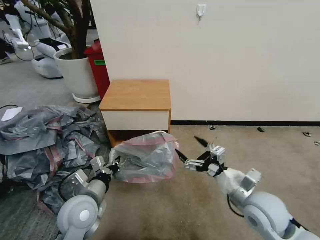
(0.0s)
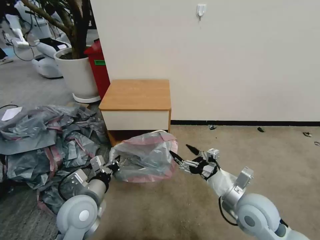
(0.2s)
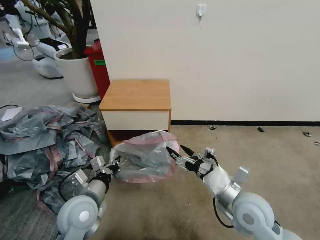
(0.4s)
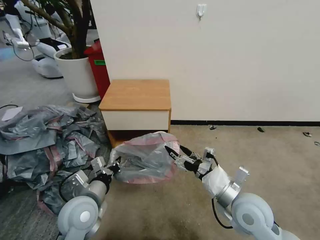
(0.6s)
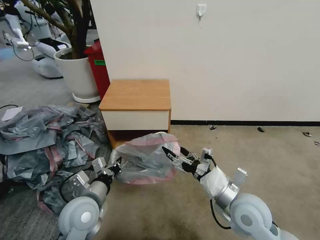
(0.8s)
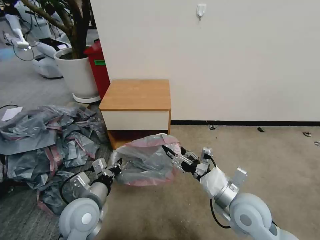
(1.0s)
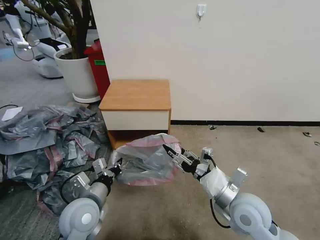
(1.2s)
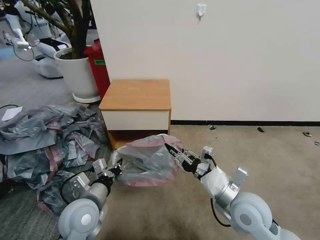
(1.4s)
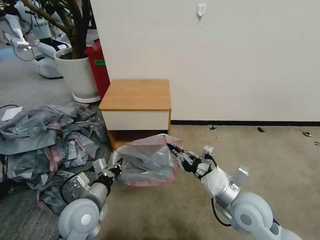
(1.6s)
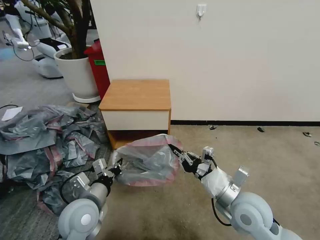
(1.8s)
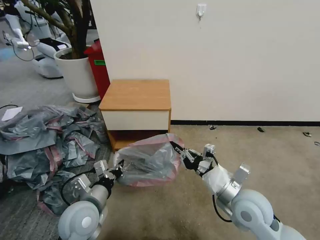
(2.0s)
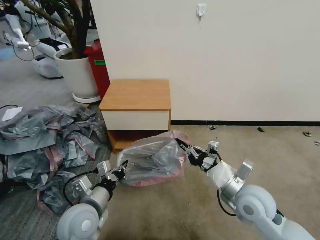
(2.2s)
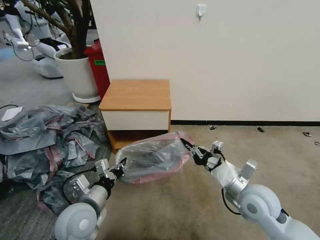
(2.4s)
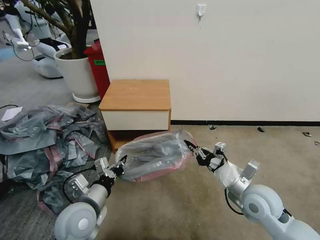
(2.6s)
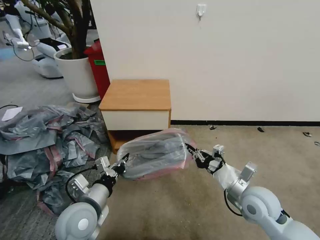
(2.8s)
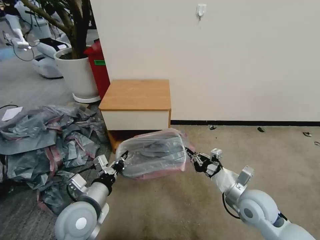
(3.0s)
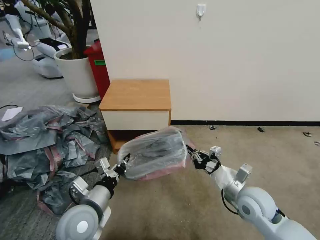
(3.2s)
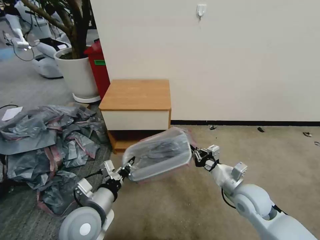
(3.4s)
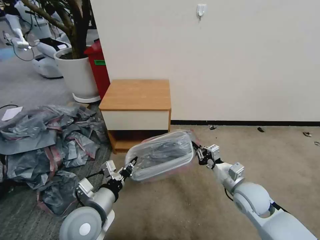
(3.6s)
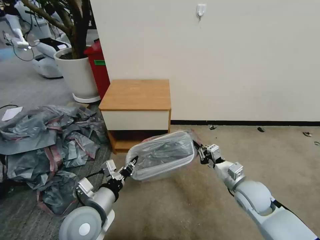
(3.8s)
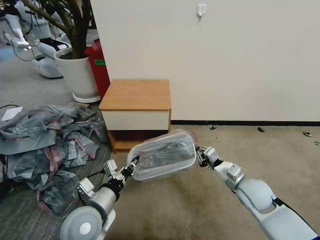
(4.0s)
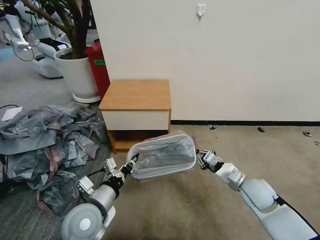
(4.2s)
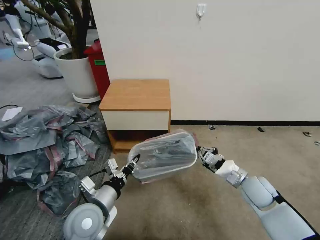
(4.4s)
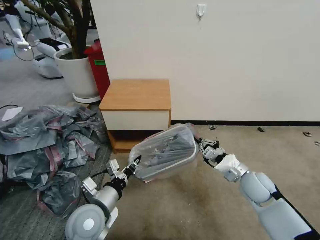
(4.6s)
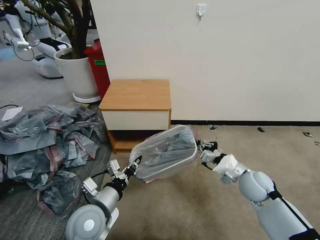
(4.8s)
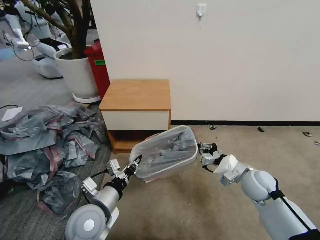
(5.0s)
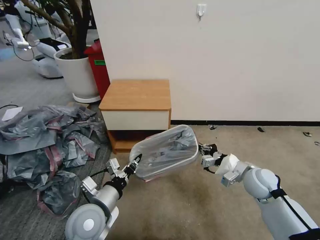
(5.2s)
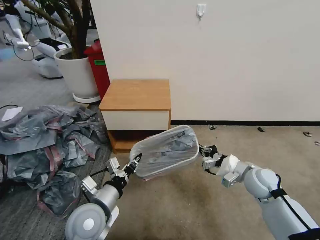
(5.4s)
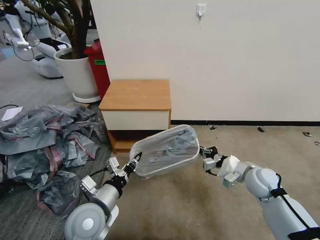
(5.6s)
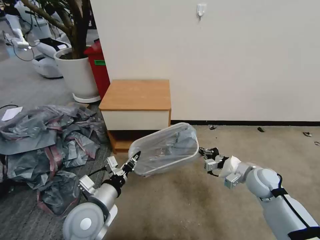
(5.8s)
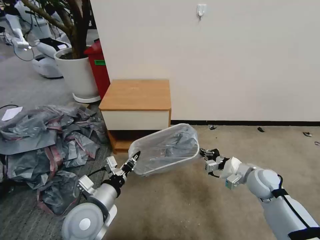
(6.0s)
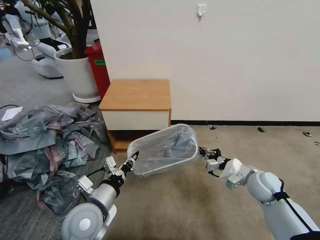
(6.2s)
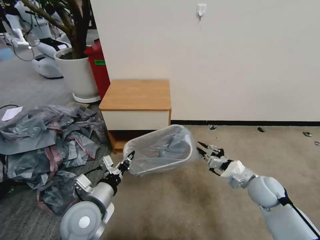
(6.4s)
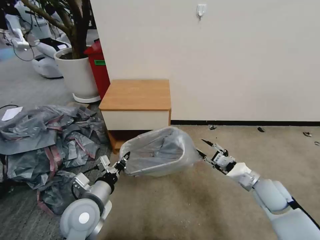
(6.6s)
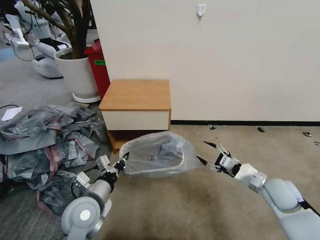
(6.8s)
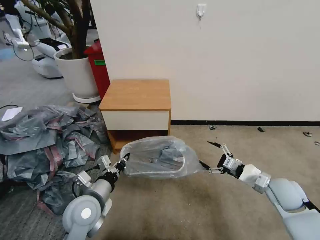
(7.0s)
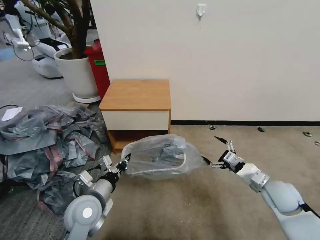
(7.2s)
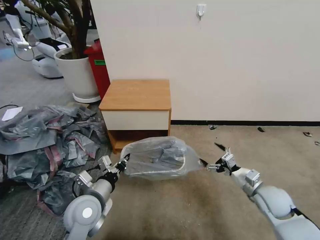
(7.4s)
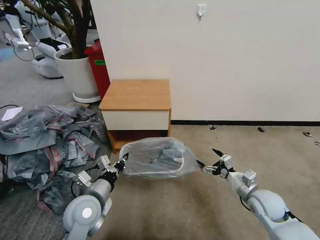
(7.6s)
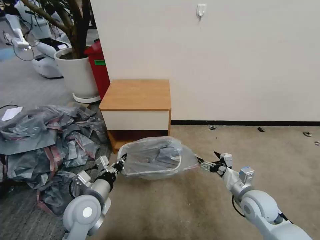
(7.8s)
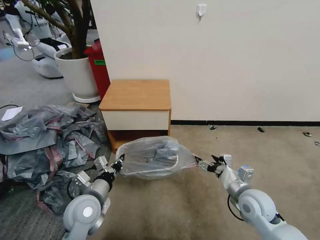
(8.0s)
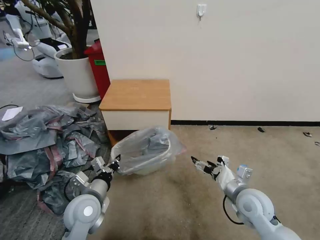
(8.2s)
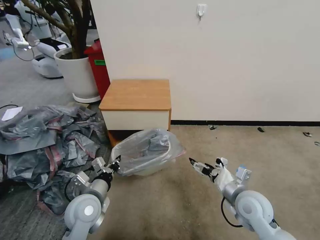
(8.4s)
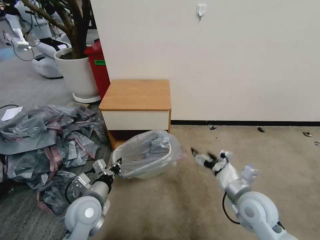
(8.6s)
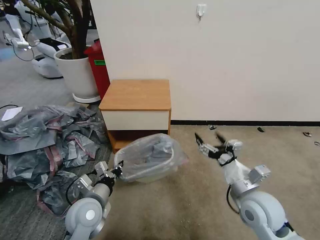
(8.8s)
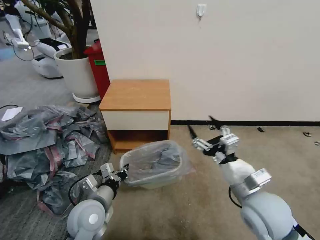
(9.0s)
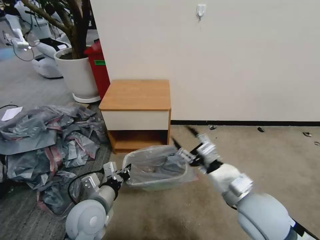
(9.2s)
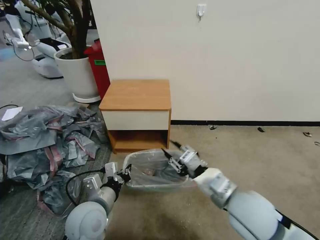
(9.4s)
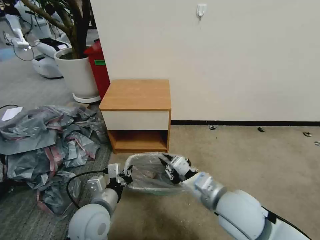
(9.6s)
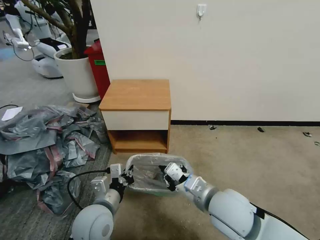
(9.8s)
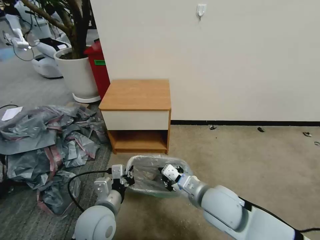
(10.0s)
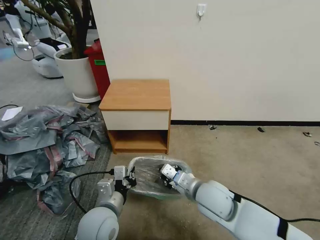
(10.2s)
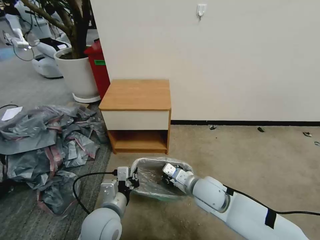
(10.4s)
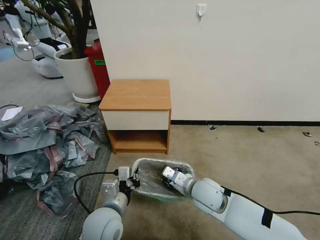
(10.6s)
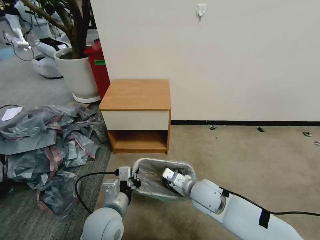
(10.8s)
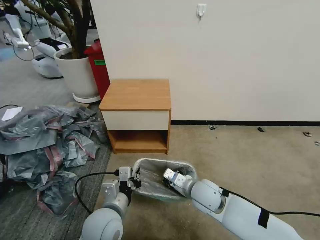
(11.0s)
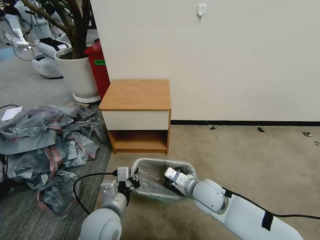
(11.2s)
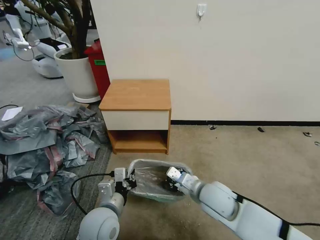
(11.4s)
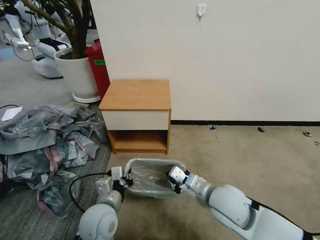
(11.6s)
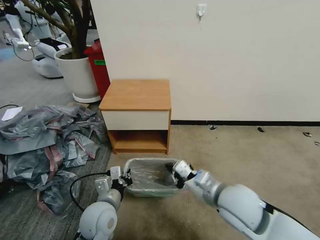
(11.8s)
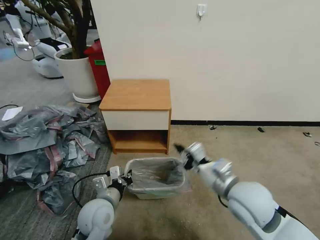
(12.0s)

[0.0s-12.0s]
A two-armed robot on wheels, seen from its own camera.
Task of the whole recording: Pick up the garbage bag from the table and place it over the trash can.
0.0s to 1.6s: The right gripper closes.
1.6s to 3.0s: The right gripper changes place by some 5 cm.
3.0s to 4.4s: The right gripper is displaced forward by roughly 5 cm.
6.0s to 7.6s: The right gripper is displaced backward by roughly 5 cm, and opens up.
7.6s to 9.0s: The right gripper goes about 20 cm upward and to the left.
9.0s to 10.4s: The right gripper heads to the left, downward and forward, covering about 15 cm, and closes up. Meanwhile the left gripper changes place by some 5 cm.
10.4s to 12.0s: The left gripper changes place by about 5 cm, while the right gripper heads upward and to the right, covering about 10 cm.

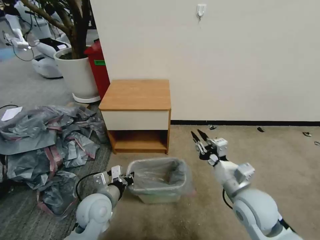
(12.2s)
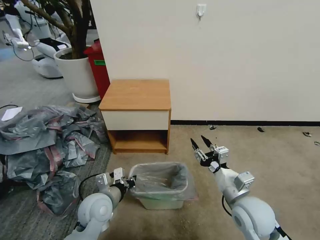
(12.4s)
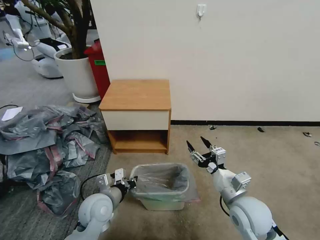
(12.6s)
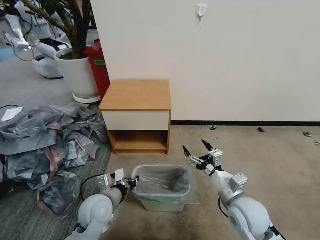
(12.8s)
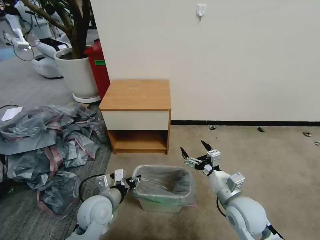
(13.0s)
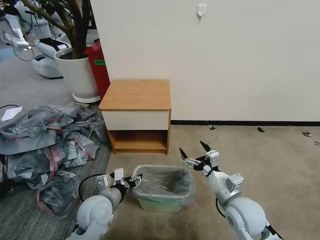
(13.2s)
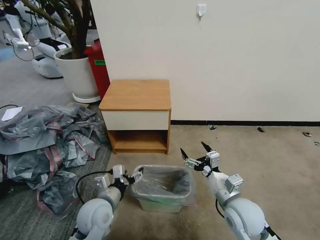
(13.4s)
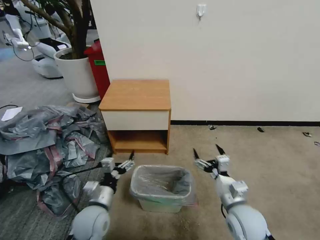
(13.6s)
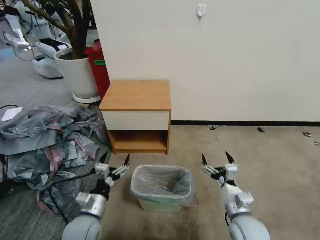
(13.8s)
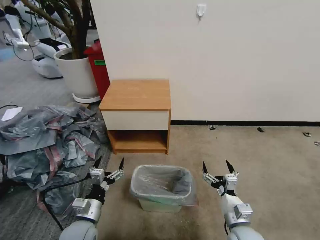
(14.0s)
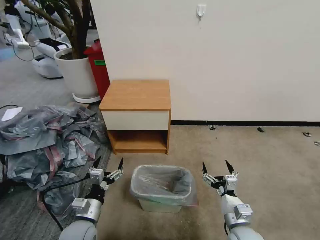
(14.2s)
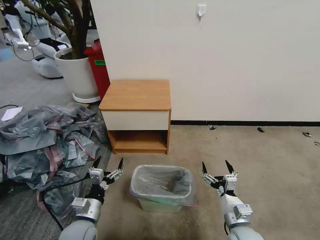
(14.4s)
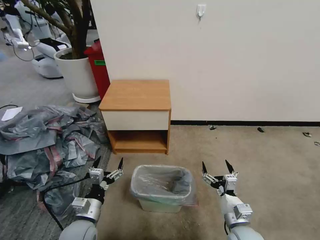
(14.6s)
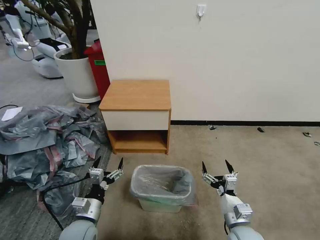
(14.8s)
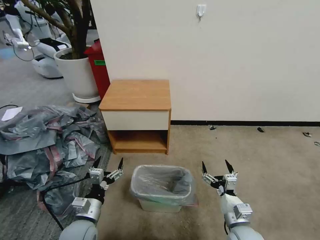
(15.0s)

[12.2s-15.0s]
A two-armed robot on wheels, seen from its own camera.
Task of the whole recording: Pick up the garbage bag from the table and place it over the trash can.
12.2s to 13.6s: The left gripper opens its fingers. Meanwhile the right gripper goes about 10 cm downward, and opens up.
13.6s to 15.0s: The right gripper goes approximately 5 cm downward; the left gripper changes place by some 5 cm.

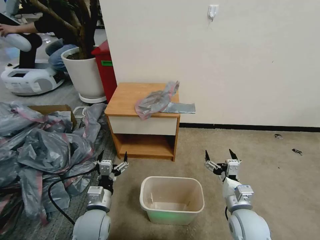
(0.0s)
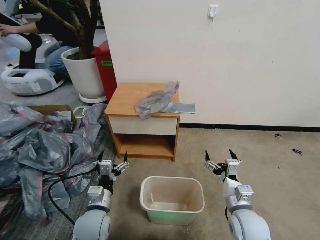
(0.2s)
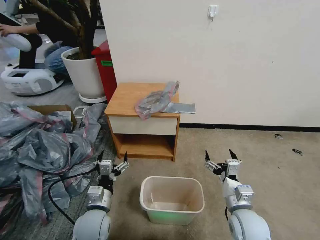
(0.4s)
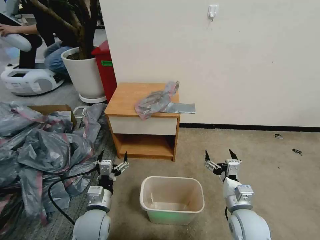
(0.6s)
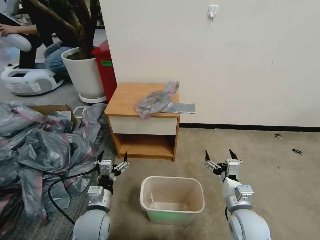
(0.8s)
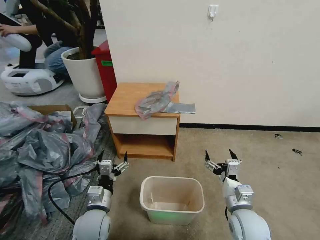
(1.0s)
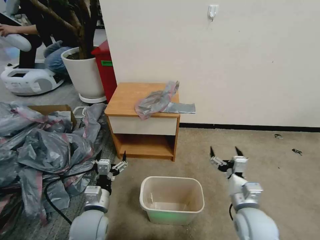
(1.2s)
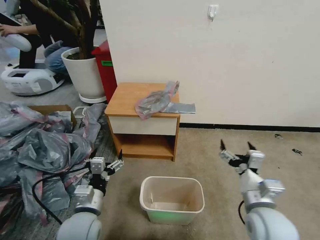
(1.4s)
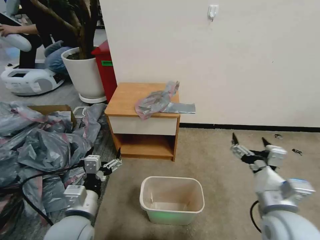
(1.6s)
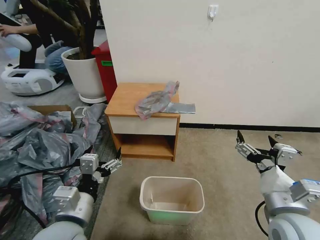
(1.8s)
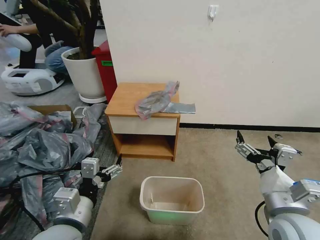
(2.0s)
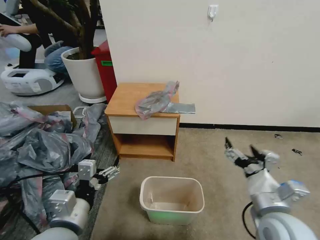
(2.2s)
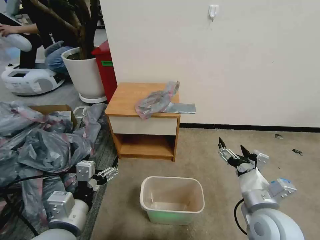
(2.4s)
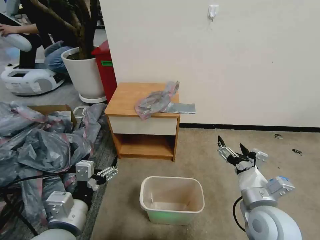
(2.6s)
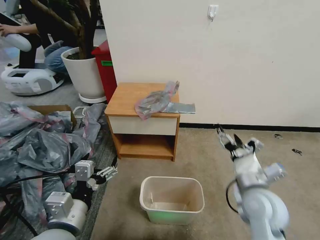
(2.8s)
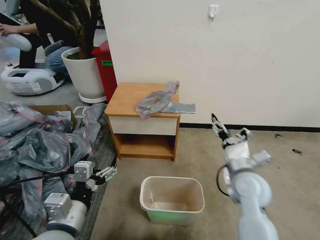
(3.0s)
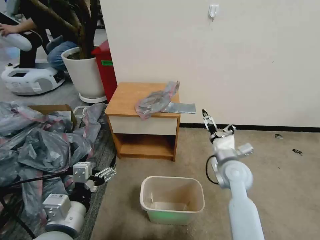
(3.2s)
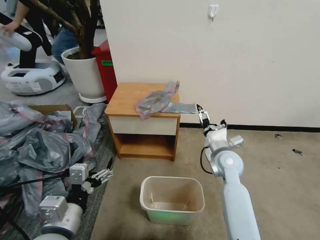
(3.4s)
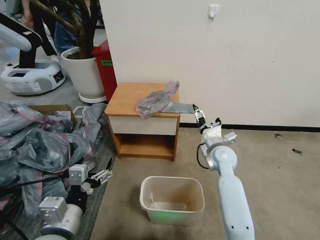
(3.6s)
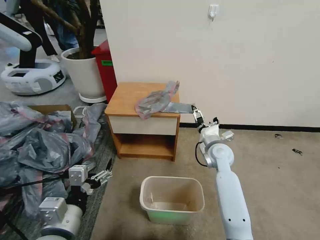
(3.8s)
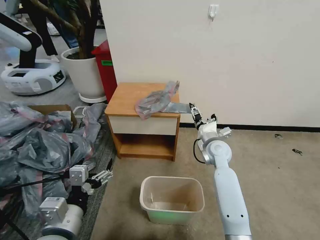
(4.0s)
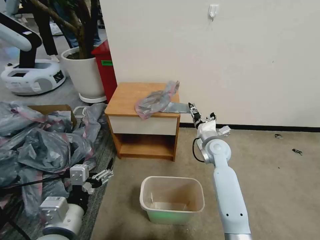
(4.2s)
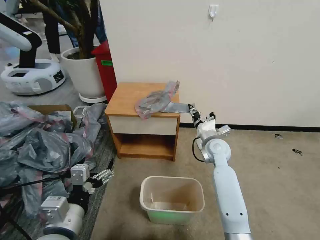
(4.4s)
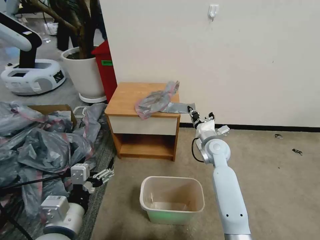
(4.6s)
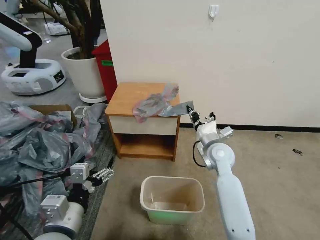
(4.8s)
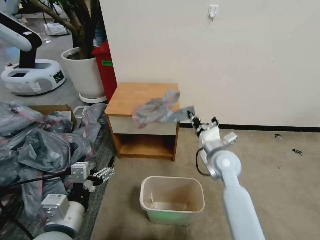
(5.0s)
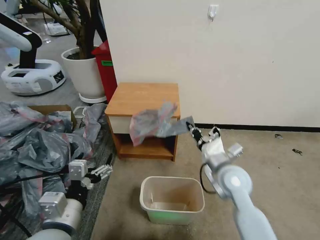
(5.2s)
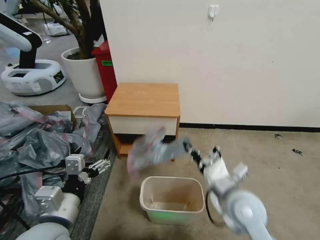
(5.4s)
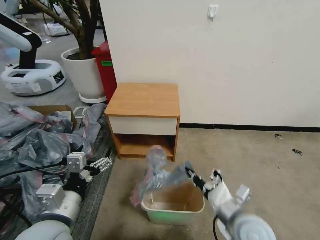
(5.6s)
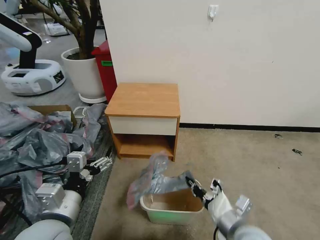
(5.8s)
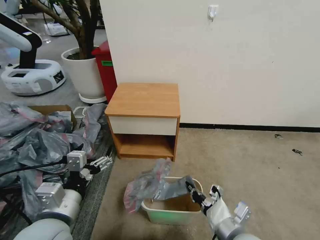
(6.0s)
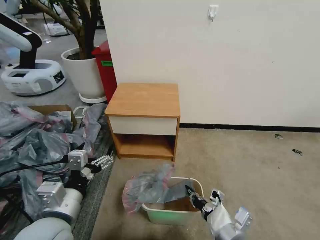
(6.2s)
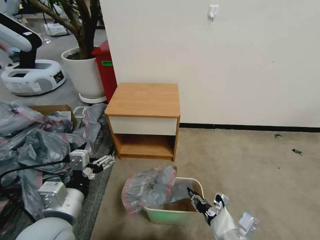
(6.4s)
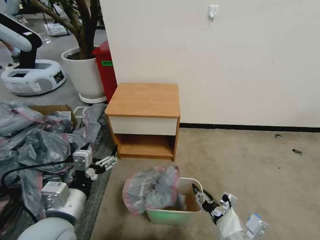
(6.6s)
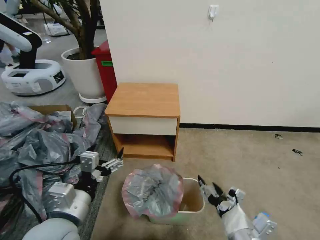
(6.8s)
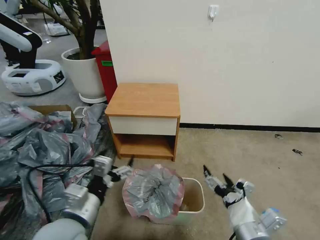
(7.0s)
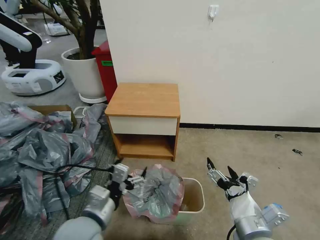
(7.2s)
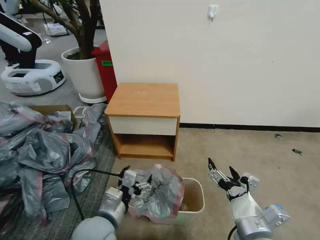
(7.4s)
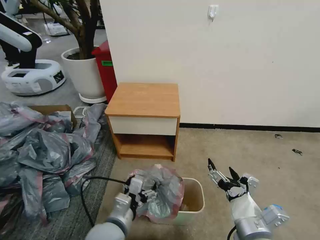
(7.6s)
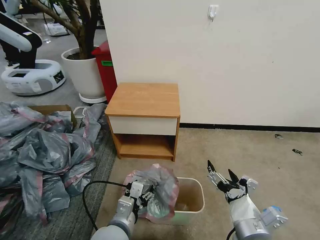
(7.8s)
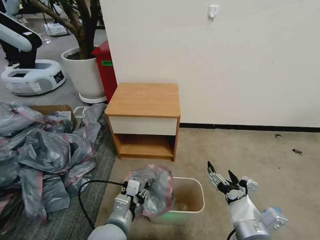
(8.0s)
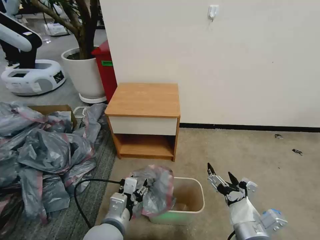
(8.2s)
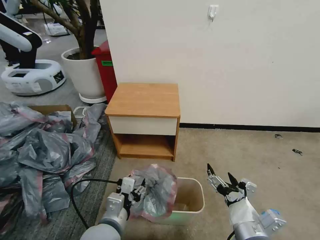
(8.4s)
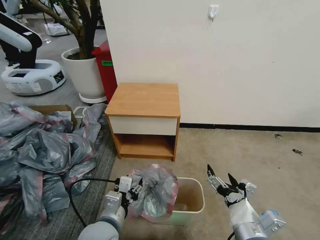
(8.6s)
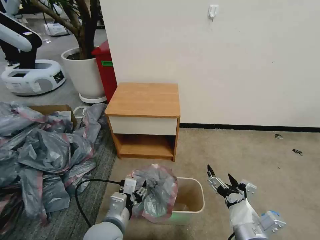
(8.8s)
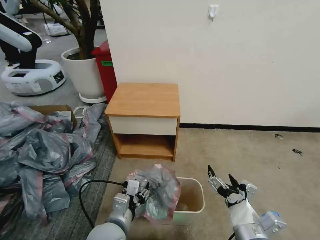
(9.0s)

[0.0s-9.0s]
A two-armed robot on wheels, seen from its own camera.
Task of the whole recording: Pick up the garbage bag from the table and place it over the trash can.
1.6s to 3.0s: The left gripper ends up some 5 cm from where it was; the right gripper travels forward by approximately 10 cm.
3.0s to 4.4s: The right gripper is displaced forward by approximately 15 cm, and closes up.
4.4s to 6.0s: The right gripper goes roughly 30 cm backward.
6.0s to 7.6s: The right gripper moves about 5 cm, and opens. Meanwhile the left gripper travels downward and to the right by some 15 cm.
7.6s to 9.0s: The left gripper closes.
